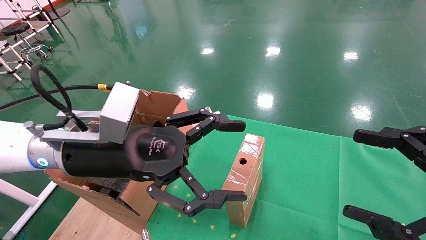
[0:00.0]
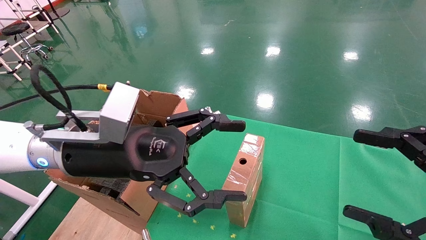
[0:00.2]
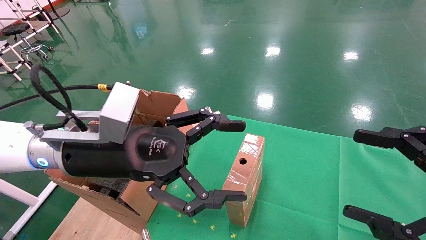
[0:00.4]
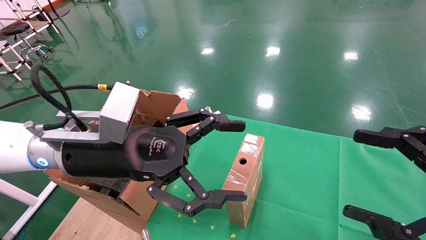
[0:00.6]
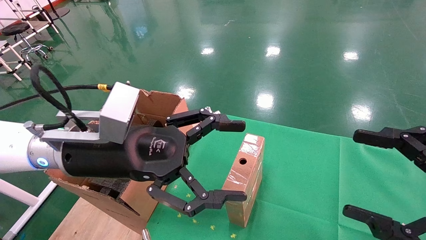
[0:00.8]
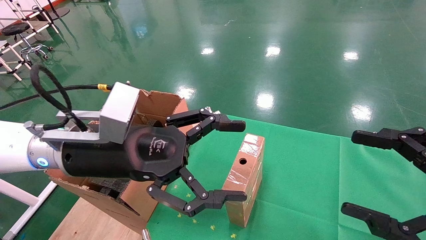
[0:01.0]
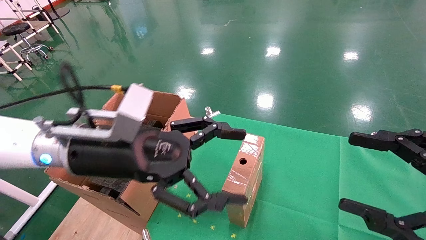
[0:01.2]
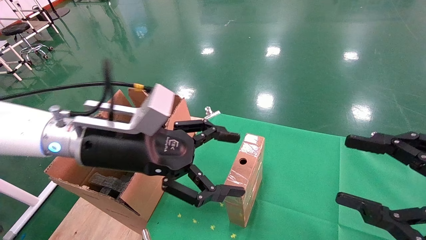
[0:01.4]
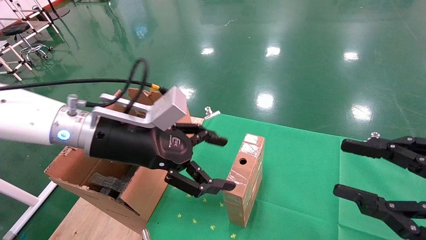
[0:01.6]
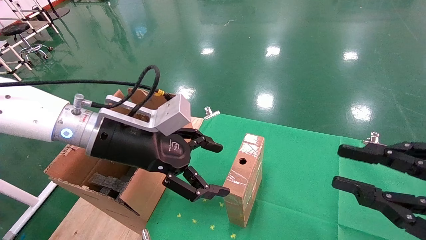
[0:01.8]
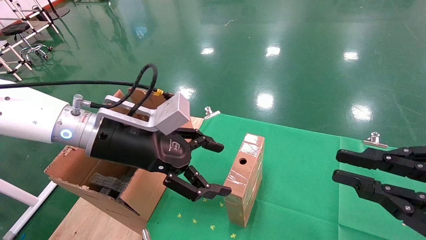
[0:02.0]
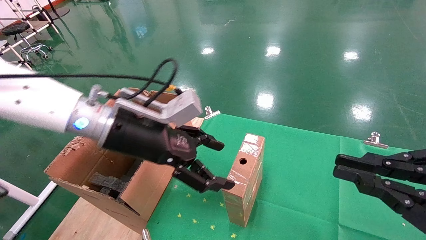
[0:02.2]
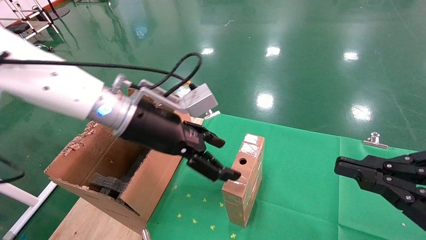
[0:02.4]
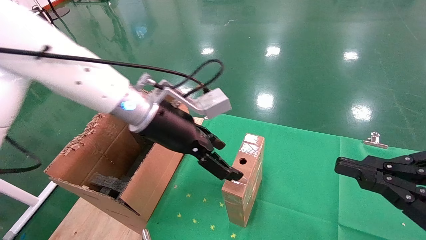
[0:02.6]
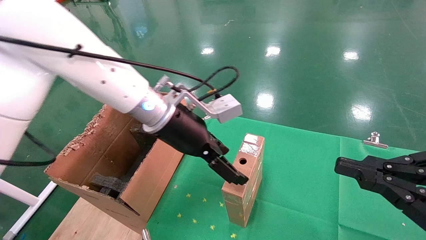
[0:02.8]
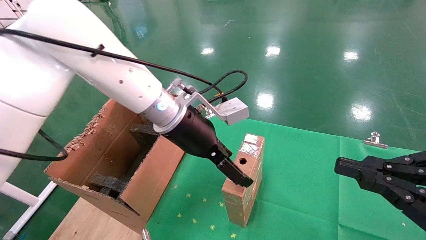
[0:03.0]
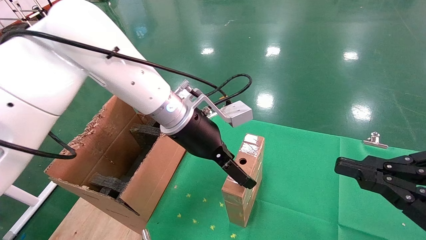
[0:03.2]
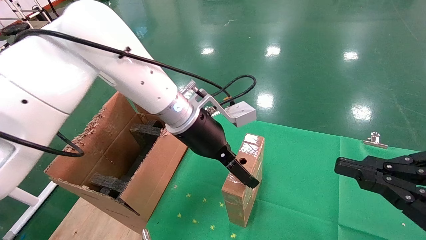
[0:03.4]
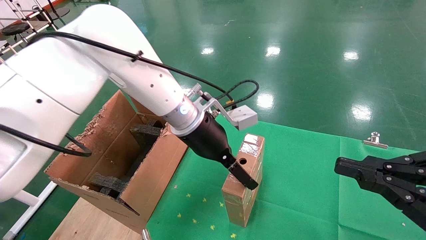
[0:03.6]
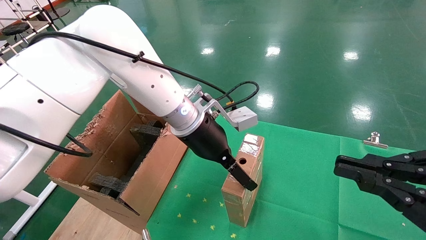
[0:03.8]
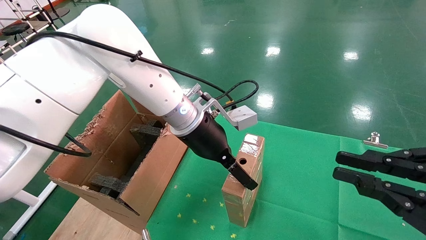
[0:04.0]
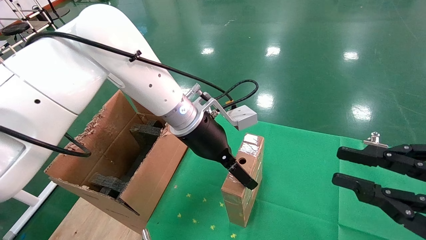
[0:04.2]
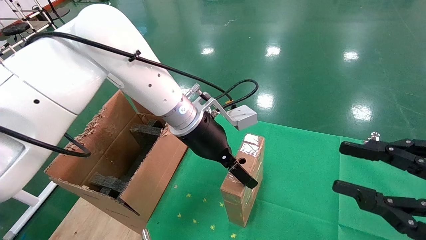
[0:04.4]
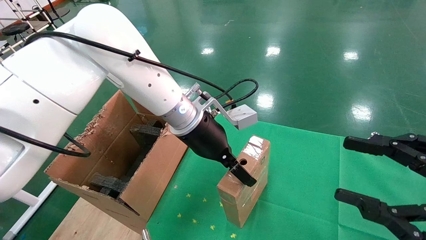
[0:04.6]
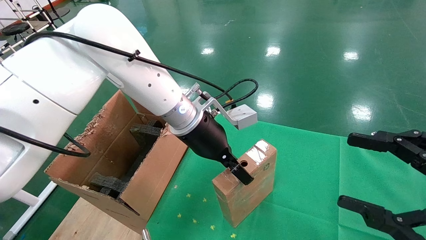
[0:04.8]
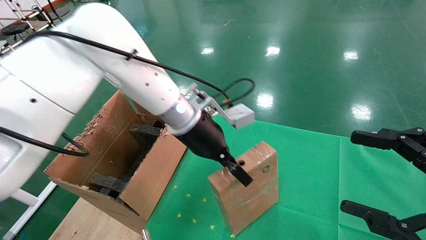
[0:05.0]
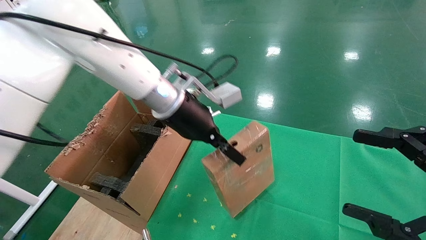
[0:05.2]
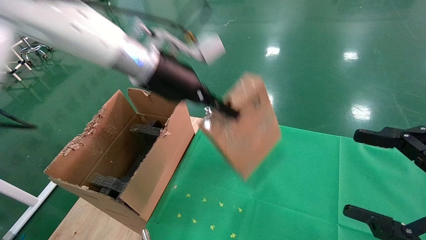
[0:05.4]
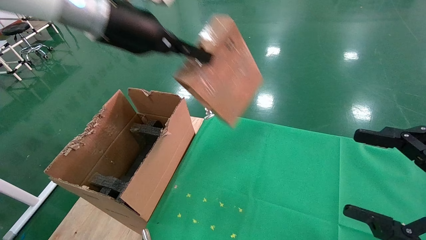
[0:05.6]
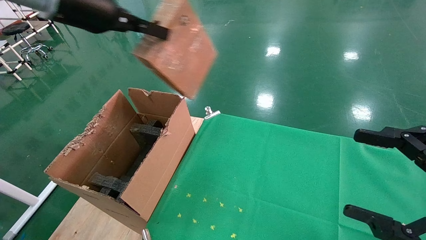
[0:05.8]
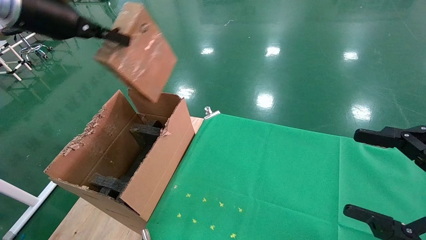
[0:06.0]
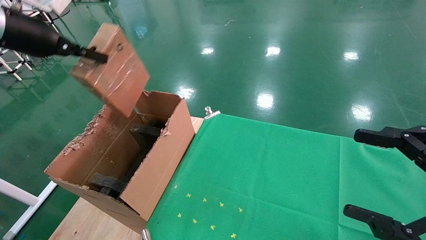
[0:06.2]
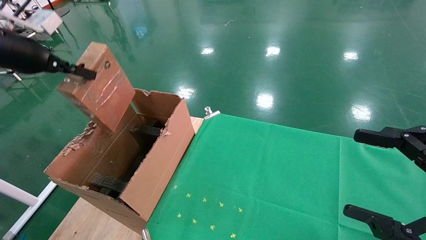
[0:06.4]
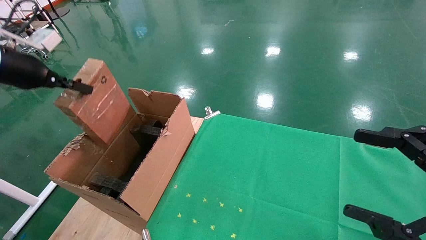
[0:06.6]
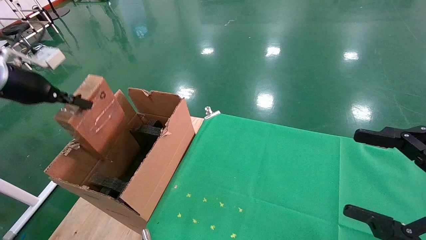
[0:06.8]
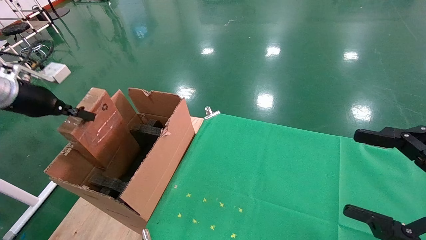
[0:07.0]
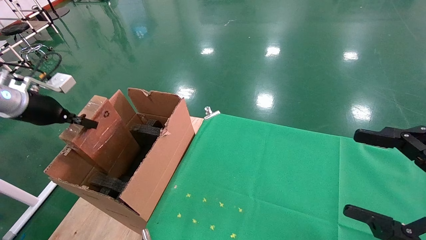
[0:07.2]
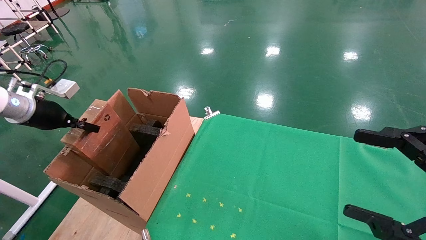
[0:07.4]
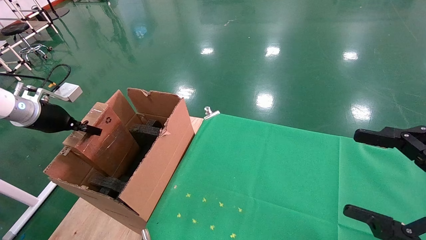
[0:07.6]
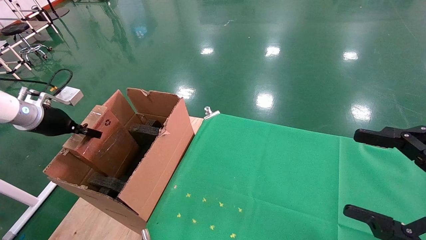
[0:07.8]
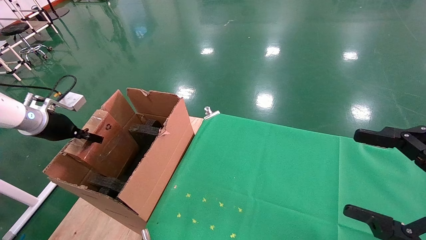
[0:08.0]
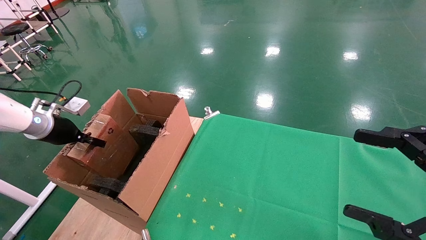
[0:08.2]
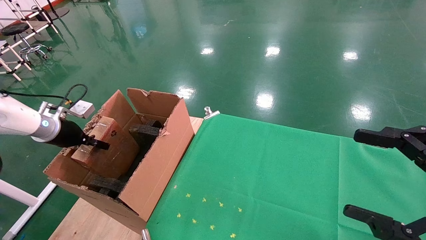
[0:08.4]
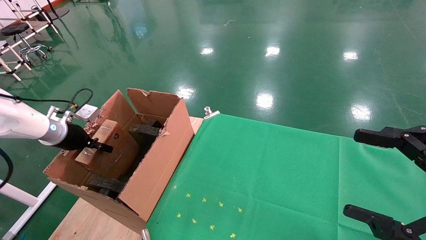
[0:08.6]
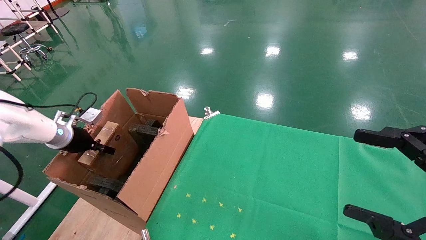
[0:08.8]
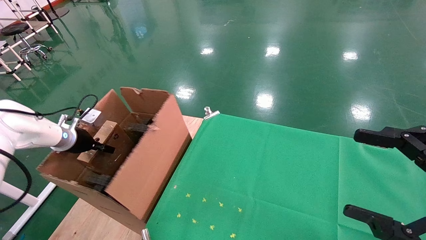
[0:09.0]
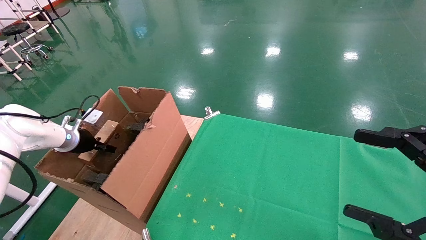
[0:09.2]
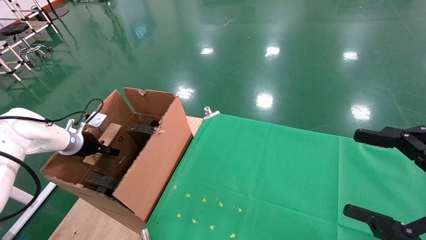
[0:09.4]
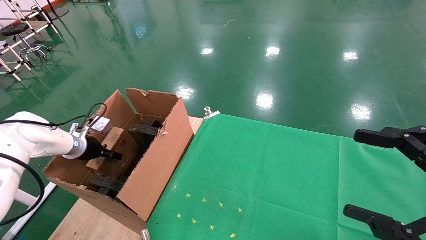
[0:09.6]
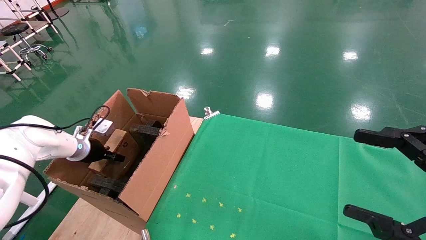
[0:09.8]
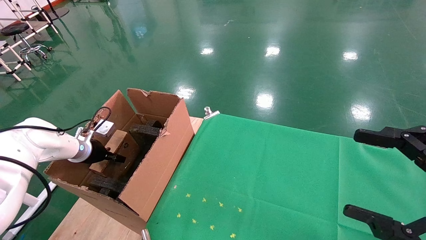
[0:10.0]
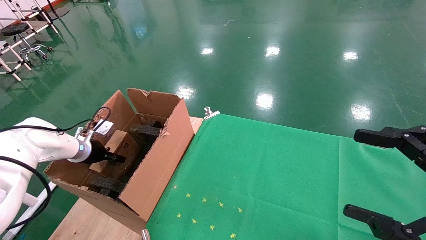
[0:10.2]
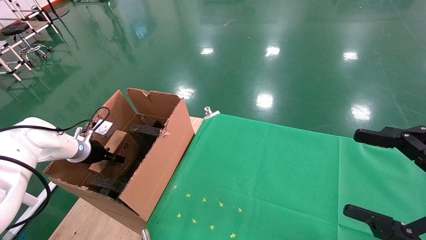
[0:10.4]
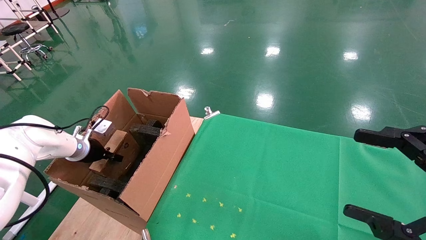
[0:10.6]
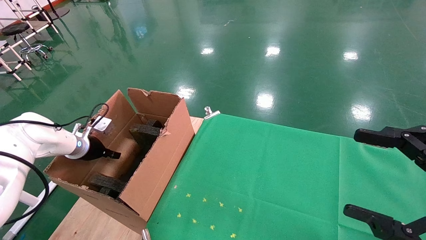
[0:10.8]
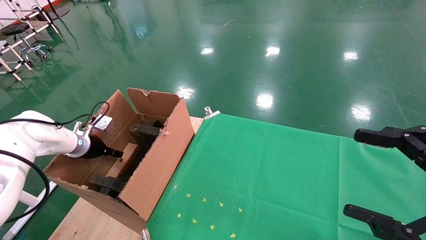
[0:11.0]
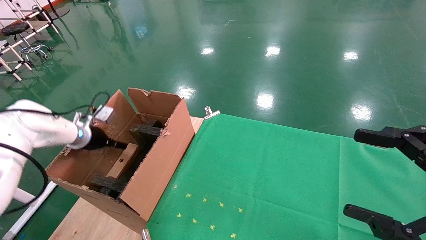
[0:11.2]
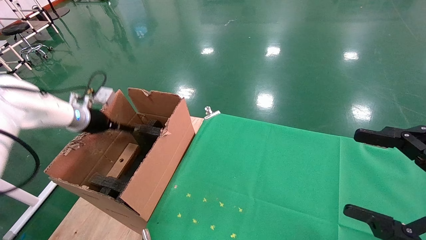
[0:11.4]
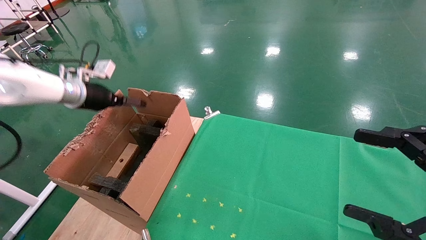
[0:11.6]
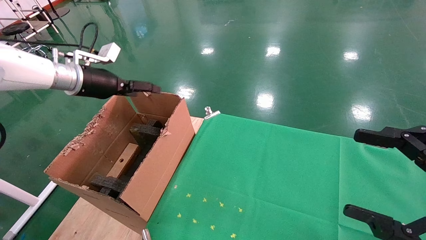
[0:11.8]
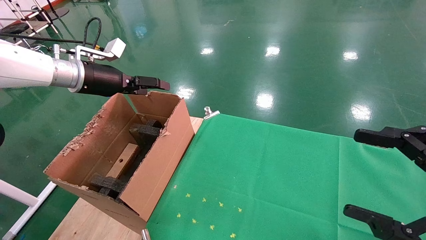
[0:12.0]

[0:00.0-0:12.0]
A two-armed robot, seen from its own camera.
Task of the whole recording: using a robotic arm to pick up a cardboard box and palace it the carton.
Step, 0:01.2 to 0:05.0: Pick up the mouse and the power cord paper box.
Step, 0:05.2 to 0:11.8: Place the mouse and the power cord paper box into the container.
0:00.0 to 0:01.6: The right gripper closes up.
0:01.6 to 0:03.0: The right gripper closes. Meanwhile the left gripper goes some 10 cm to the right and forward.
0:04.4 to 0:06.0: The right gripper opens its fingers, while the left gripper travels to the left and upward by roughly 30 cm, and closes.
0:06.0 to 0:07.6: The left gripper shifts some 25 cm downward and to the left.
0:07.6 to 0:09.0: The left gripper heads downward and forward, covering about 10 cm.
0:09.0 to 0:10.4: The left gripper shifts by some 5 cm.
0:10.4 to 0:12.0: The left gripper heads upward and to the right, covering about 25 cm, and opens its fingers.

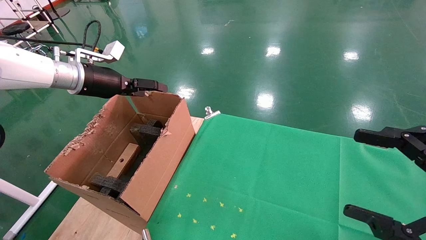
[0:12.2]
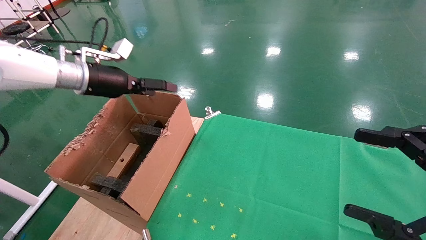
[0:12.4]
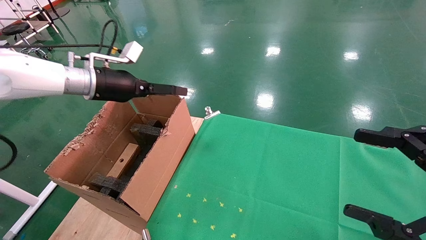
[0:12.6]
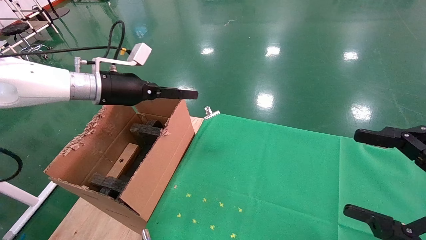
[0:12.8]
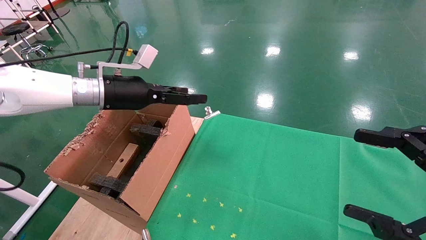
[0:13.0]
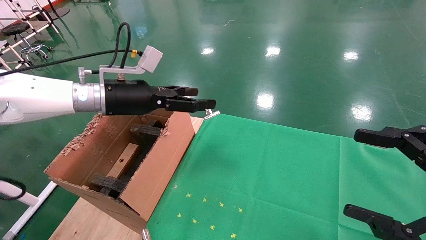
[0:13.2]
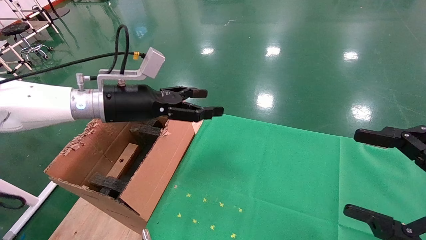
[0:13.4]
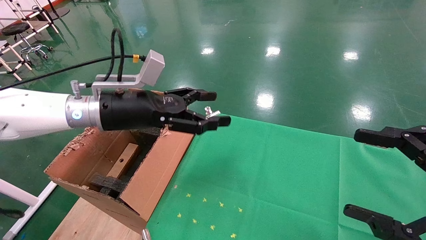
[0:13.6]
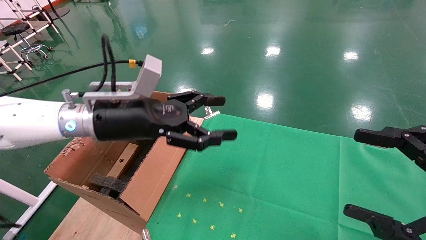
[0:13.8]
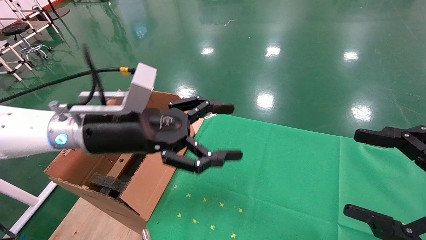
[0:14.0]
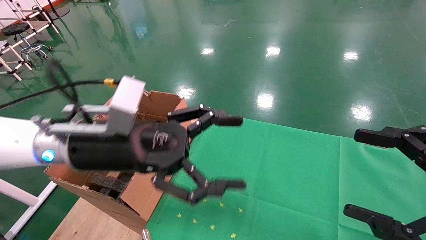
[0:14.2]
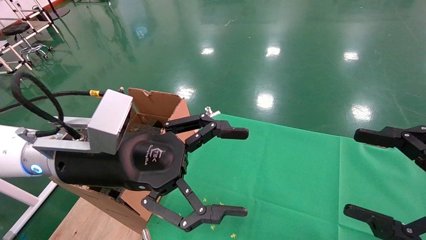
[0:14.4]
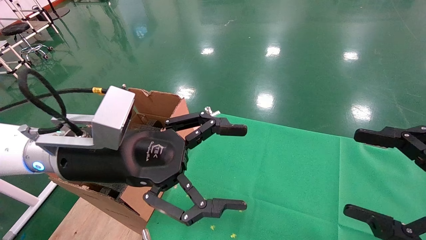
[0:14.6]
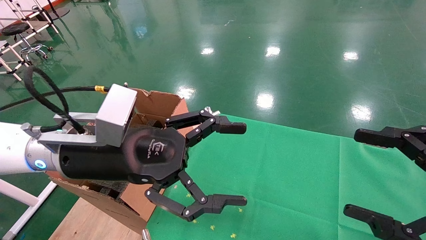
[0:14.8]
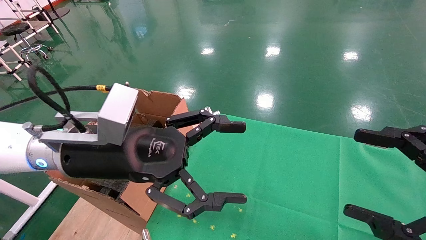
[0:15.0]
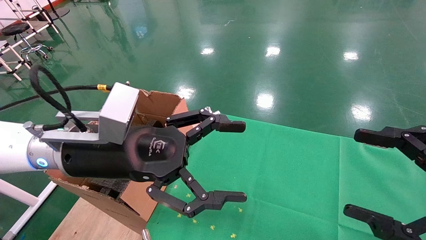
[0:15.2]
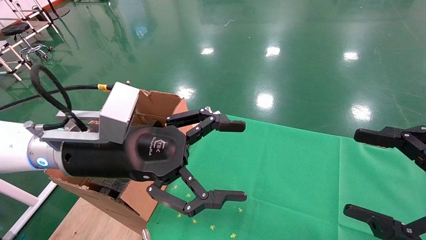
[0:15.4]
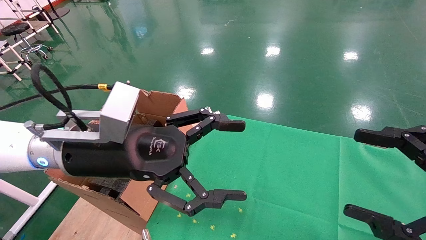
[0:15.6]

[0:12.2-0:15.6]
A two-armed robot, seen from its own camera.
Task of the whole recording: using a robotic arm to pick up a cardboard box and palace it the carton.
0:12.2 to 0:13.8: The left gripper goes roughly 15 cm to the right and backward.
0:13.8 to 0:15.6: The left gripper heads backward, covering about 5 cm.
